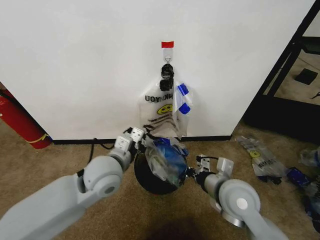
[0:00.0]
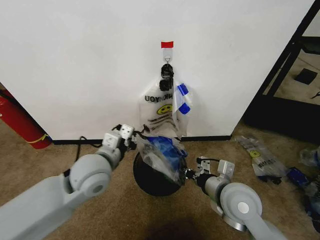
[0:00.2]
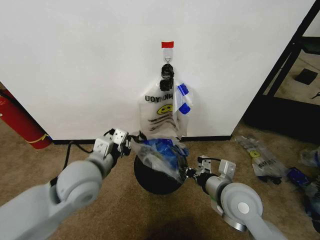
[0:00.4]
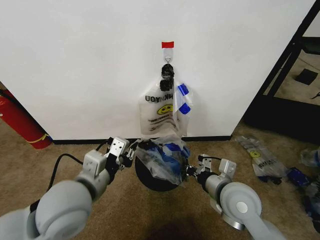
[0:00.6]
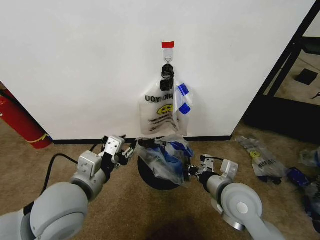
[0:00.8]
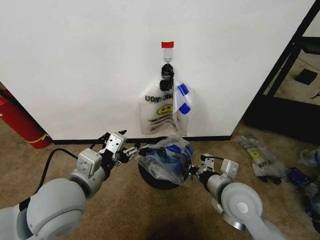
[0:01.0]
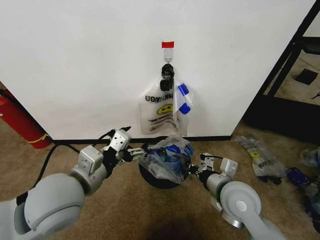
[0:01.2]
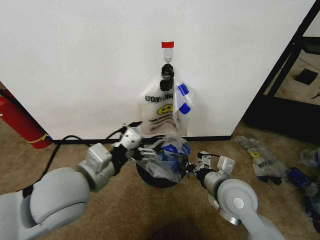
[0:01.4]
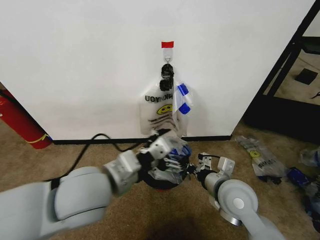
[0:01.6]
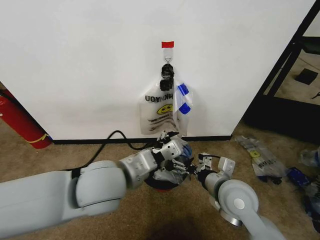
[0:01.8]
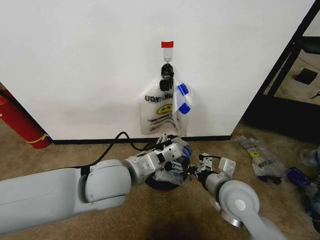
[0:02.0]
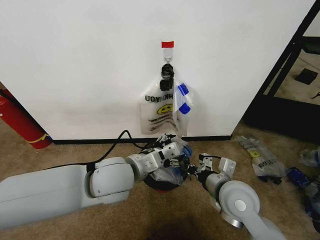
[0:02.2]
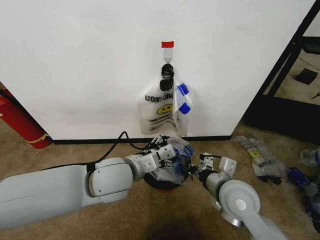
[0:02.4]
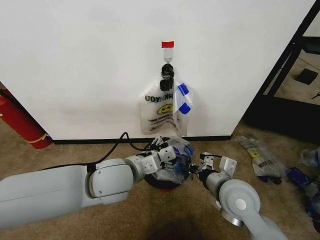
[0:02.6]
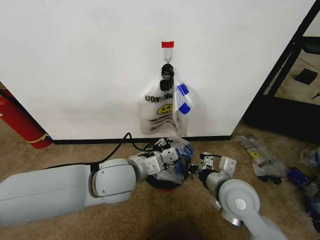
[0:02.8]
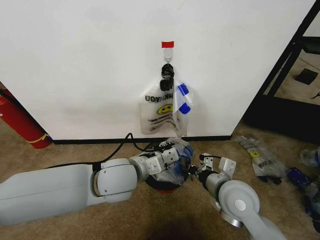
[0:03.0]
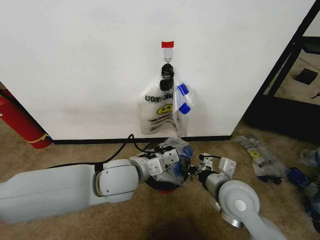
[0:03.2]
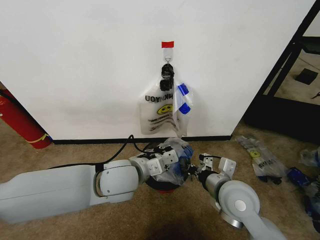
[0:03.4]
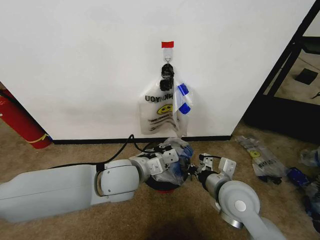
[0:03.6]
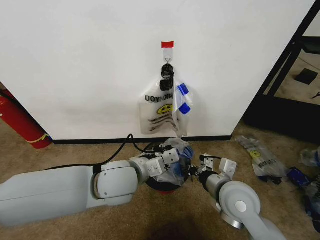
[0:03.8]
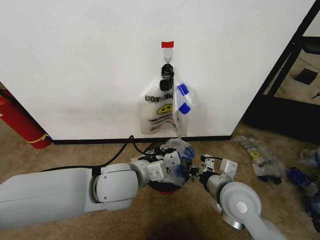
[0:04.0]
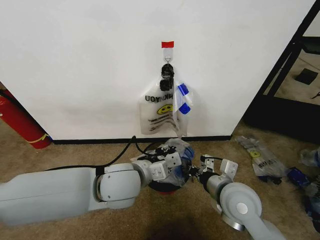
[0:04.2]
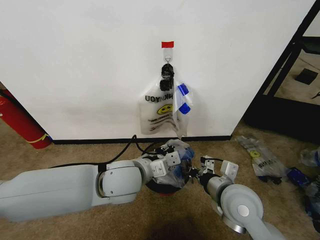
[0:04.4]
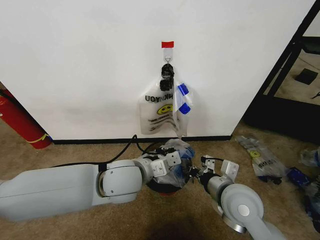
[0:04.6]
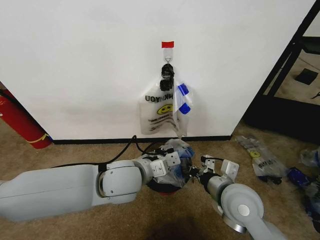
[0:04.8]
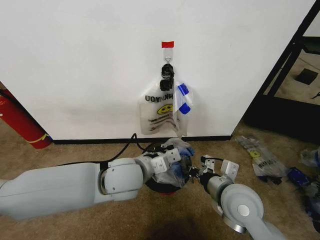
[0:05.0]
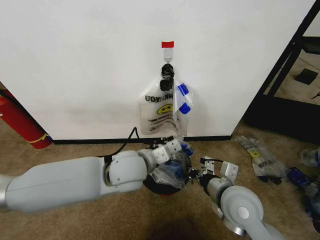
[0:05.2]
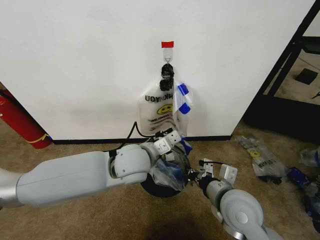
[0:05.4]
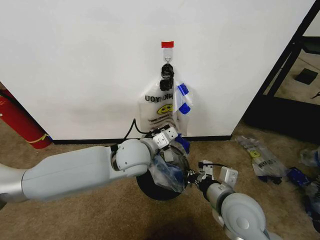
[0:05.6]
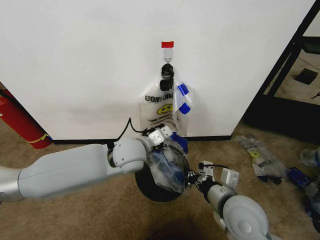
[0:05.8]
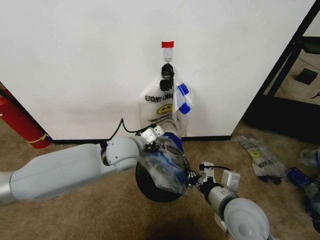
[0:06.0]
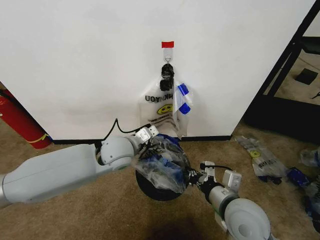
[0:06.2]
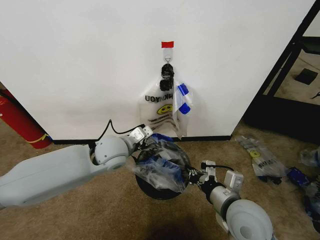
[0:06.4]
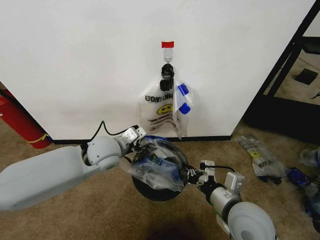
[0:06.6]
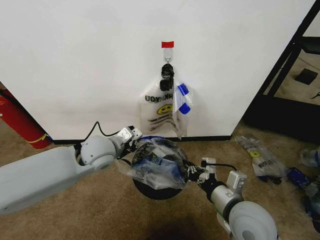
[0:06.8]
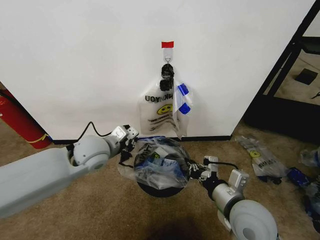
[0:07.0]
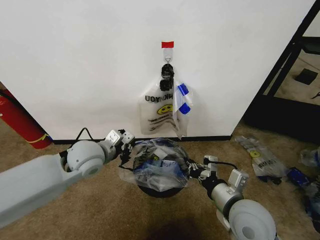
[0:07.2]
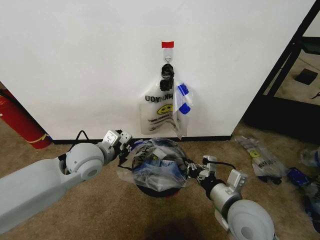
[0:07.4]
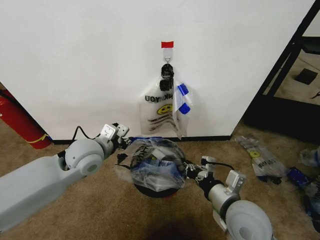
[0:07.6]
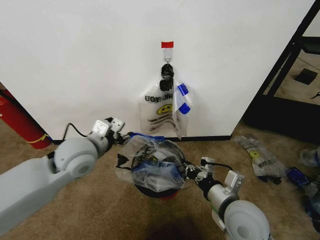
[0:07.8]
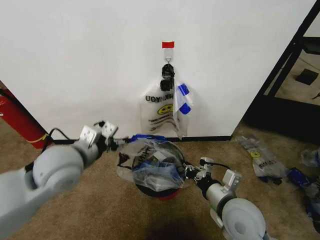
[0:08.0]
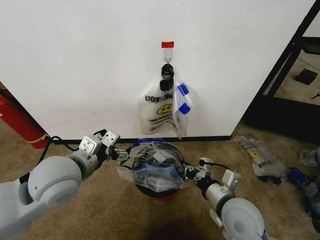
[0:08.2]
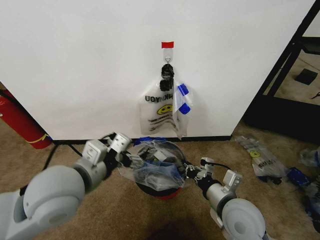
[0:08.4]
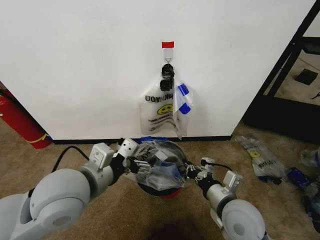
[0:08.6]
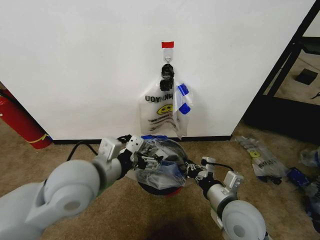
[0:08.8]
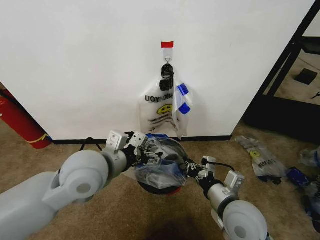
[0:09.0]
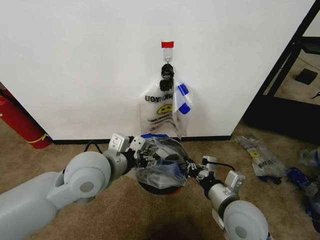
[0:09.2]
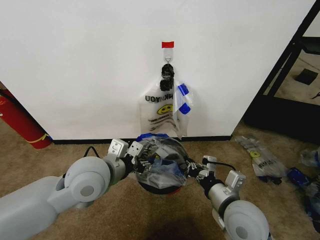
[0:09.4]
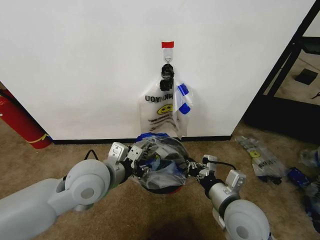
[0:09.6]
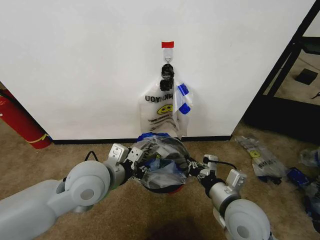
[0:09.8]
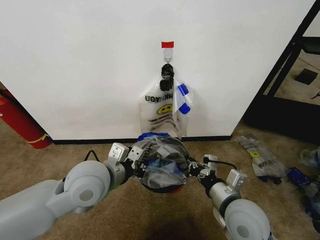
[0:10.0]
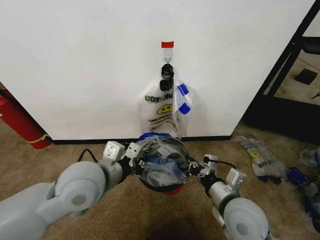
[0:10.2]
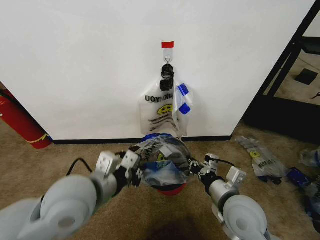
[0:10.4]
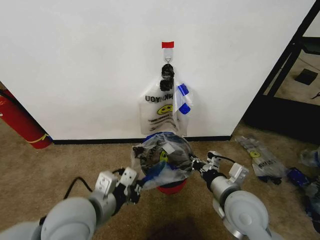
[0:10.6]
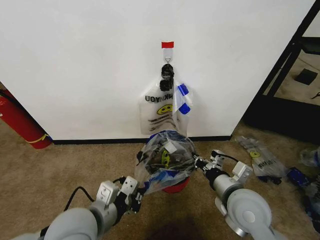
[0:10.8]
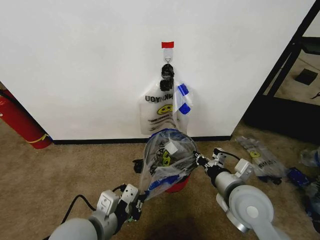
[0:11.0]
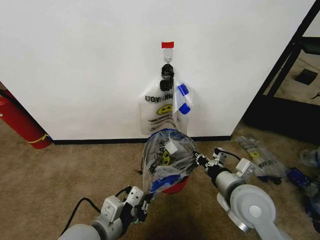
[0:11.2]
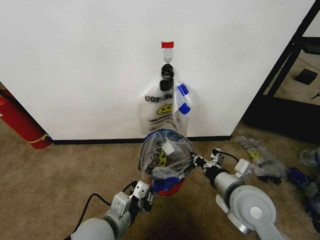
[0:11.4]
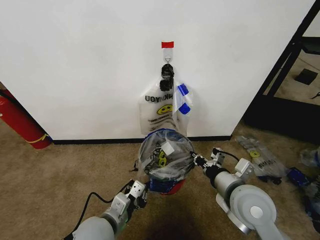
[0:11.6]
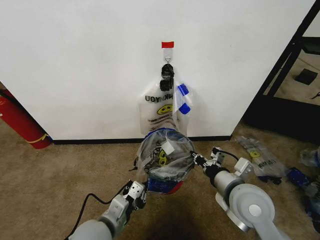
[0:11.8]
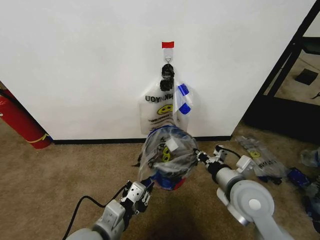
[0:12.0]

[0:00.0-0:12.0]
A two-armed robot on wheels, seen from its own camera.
Task of the whole recording: Pick up the garbage bag from the wall and place it over the trash bin.
0:00.0 to 0:01.6: The left gripper travels backward and upward by some 10 cm, and opens.
0:01.6 to 0:03.0: The left gripper heads forward and downward, covering some 10 cm, and closes up.
0:03.0 to 0:04.4: The left gripper closes, then opens again.
0:04.4 to 0:06.0: The left gripper shifts about 10 cm forward, and closes.
0:06.0 to 0:07.6: The left gripper shifts roughly 10 cm to the left.
0:07.6 to 0:09.0: The left gripper goes about 10 cm backward, and opens.
0:09.0 to 0:10.4: The left gripper moves backward, about 5 cm, and closes its fingers.
0:10.4 to 0:12.0: The left gripper is displaced downward and backward by about 15 cm.

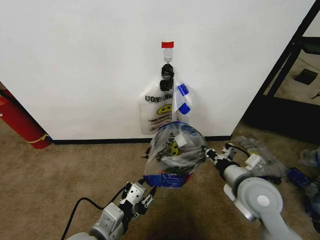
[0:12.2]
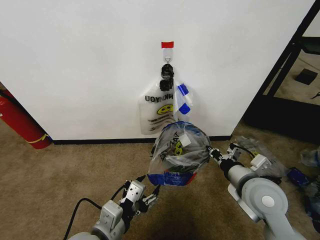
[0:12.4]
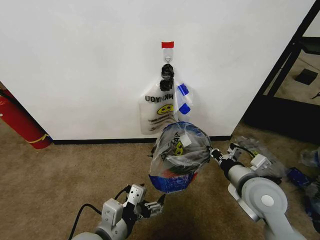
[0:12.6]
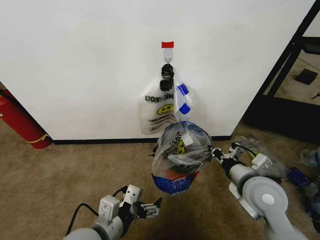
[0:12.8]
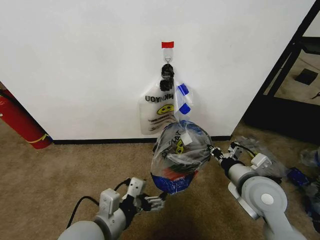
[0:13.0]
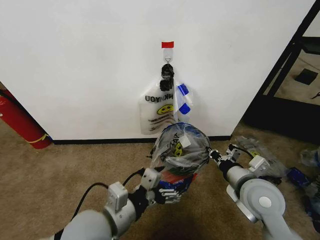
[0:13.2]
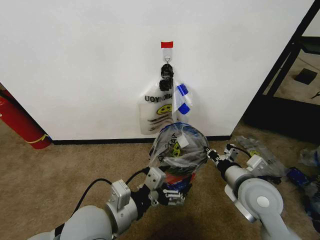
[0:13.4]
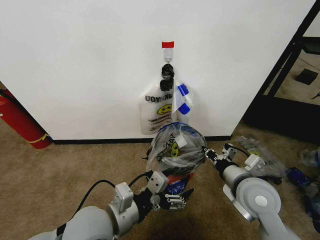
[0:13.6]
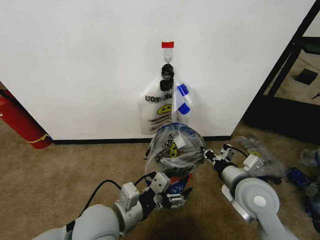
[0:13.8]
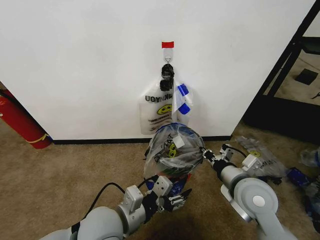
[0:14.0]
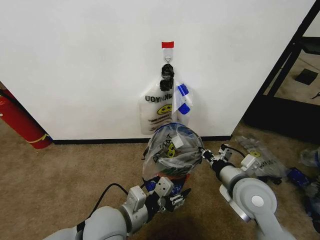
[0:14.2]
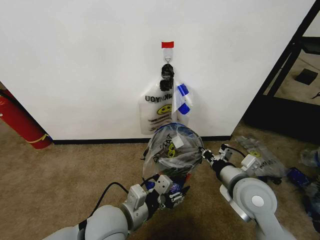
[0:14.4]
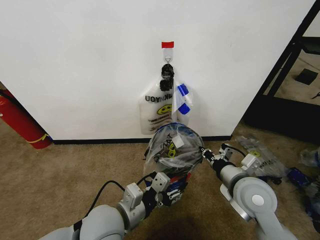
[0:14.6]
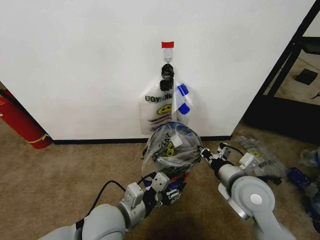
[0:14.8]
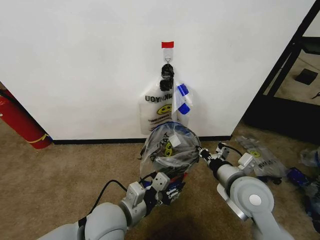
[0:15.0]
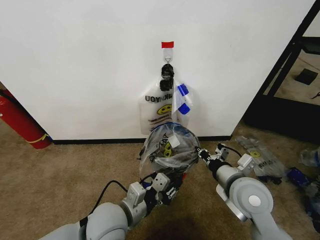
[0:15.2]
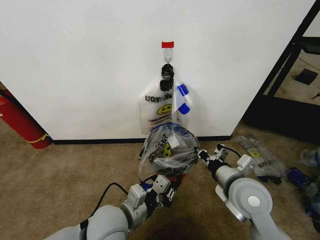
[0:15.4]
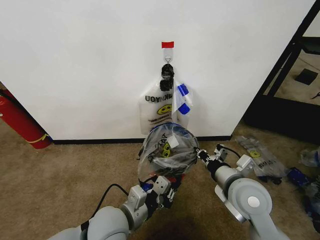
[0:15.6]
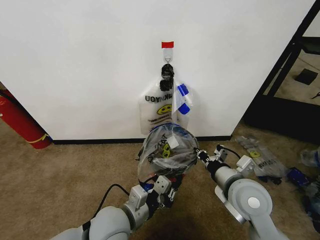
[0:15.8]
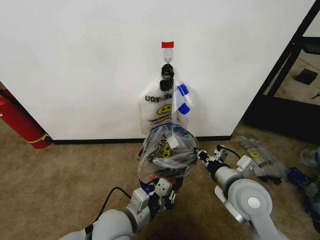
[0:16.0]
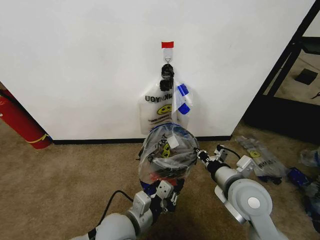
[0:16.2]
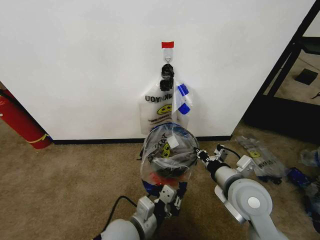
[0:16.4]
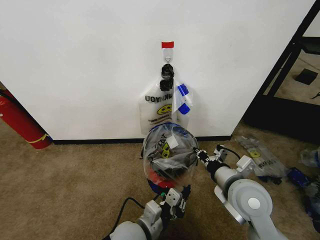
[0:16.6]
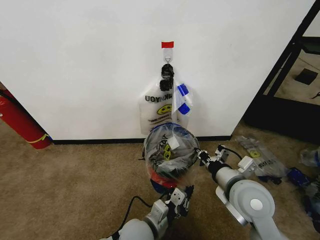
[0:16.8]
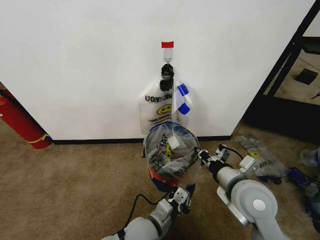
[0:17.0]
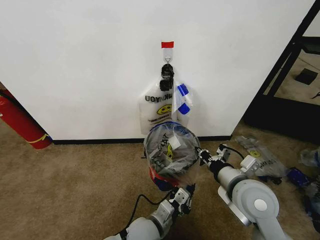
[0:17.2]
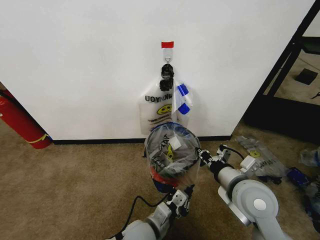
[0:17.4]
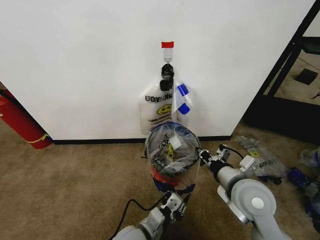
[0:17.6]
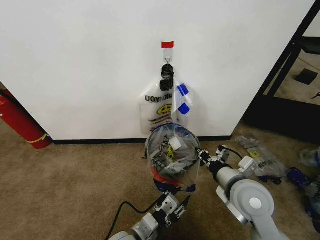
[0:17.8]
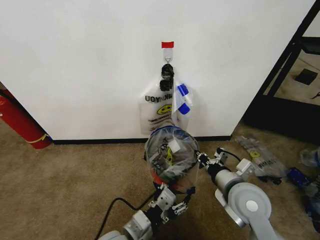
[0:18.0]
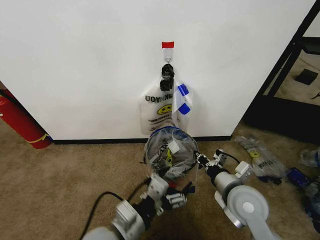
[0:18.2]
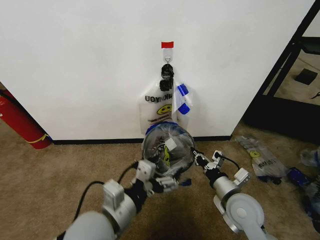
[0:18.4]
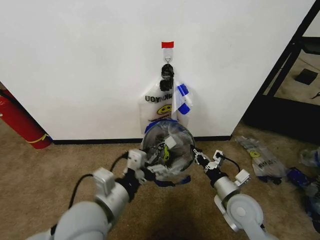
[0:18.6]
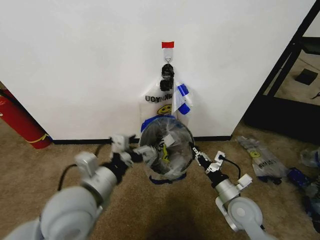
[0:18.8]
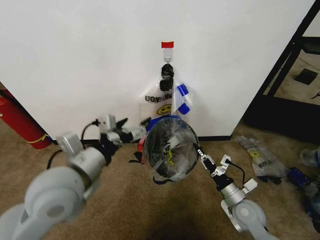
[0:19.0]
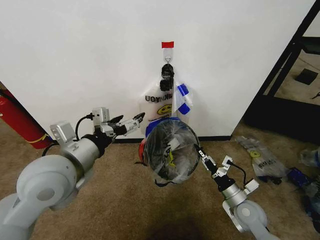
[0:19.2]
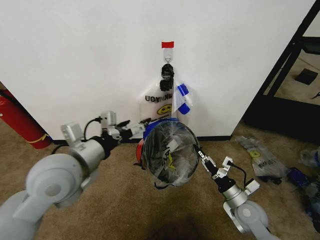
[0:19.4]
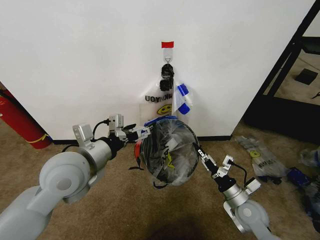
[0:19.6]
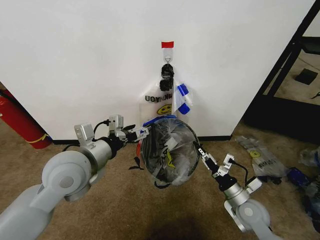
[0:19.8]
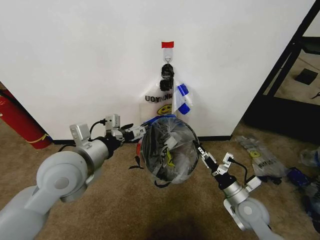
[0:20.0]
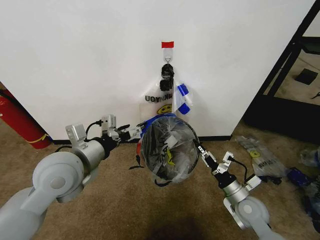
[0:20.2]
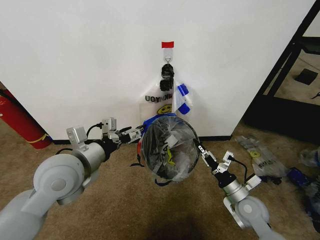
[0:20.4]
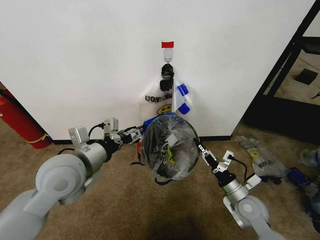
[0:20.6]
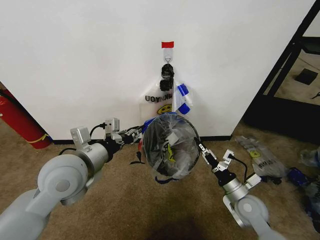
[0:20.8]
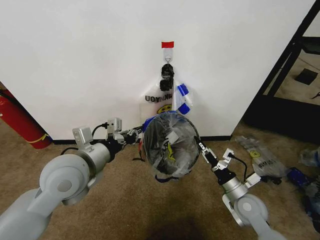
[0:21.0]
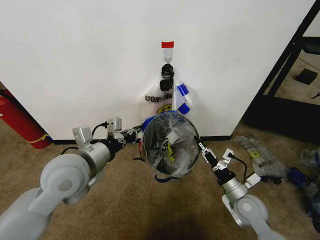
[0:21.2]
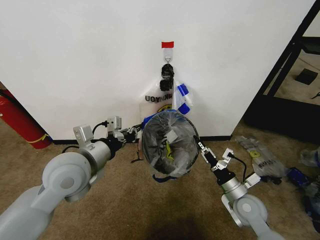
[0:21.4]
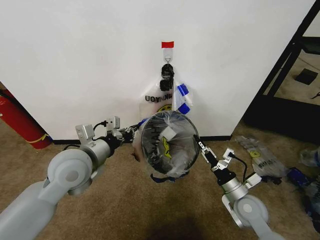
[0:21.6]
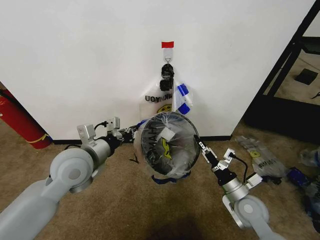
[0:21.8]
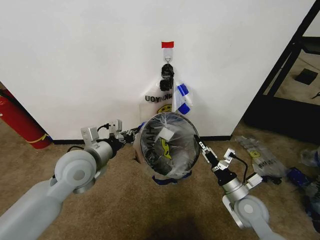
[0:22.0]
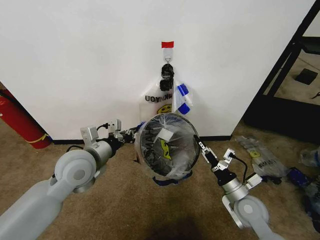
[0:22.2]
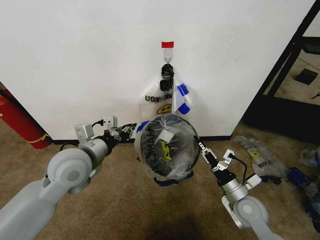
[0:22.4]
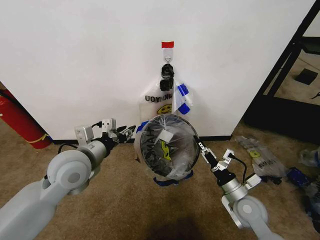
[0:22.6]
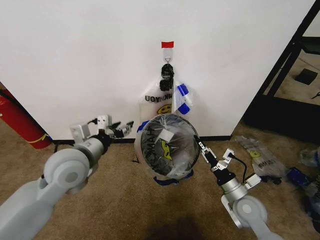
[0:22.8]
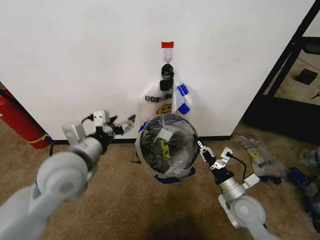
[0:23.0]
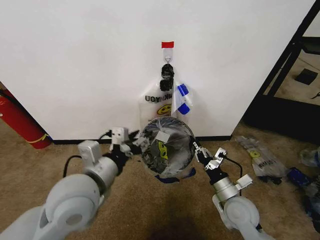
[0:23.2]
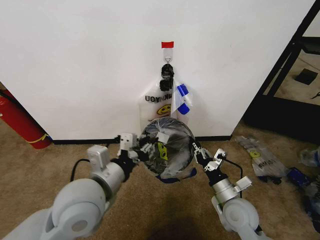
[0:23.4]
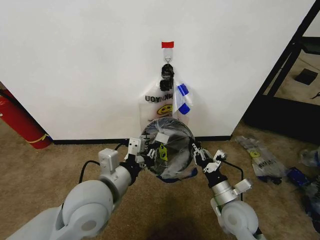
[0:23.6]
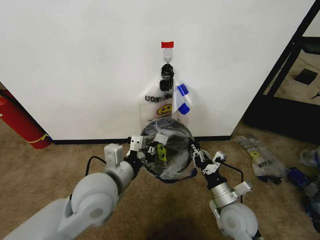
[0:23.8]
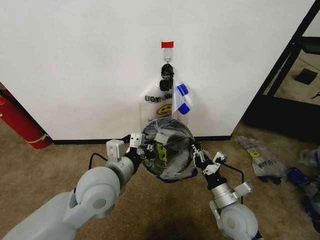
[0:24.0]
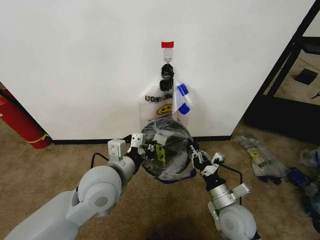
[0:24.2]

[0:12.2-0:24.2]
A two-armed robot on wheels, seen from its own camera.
Task of the whole recording: Pick up the garbage bag from the wall and place it over the trash bin.
0:12.2 to 0:13.8: The left gripper is displaced forward by about 5 cm.
0:13.8 to 0:15.2: The left gripper closes.
0:15.2 to 0:16.6: The left gripper moves downward and to the right, roughly 10 cm.
0:16.6 to 0:18.2: The left gripper goes some 10 cm upward, and opens up.
0:18.2 to 0:19.8: The right gripper shifts some 15 cm downward and to the right. The left gripper is displaced forward, upward and to the left by roughly 20 cm.
0:19.8 to 0:21.2: The left gripper closes up.
0:21.2 to 0:22.6: The left gripper opens.
0:22.6 to 0:24.2: The left gripper travels to the right by about 10 cm, and closes up; the right gripper is displaced to the left by approximately 5 cm.
